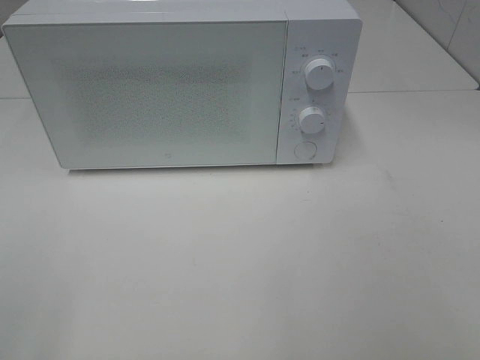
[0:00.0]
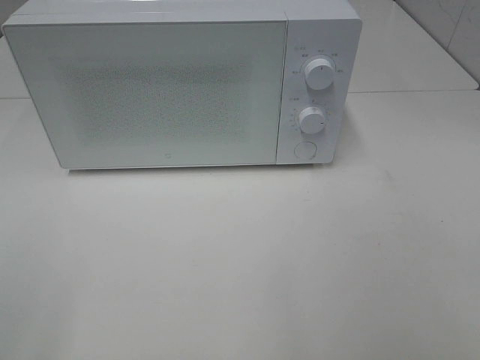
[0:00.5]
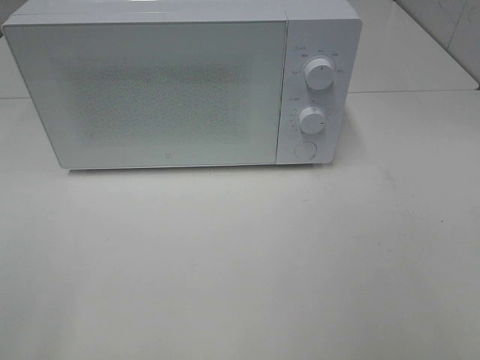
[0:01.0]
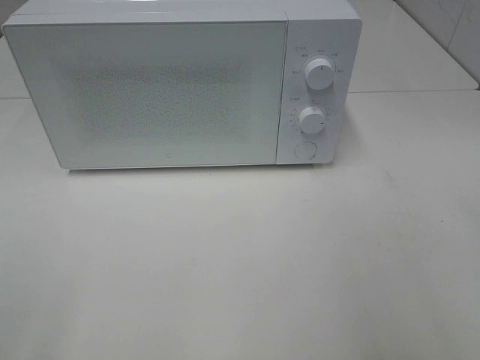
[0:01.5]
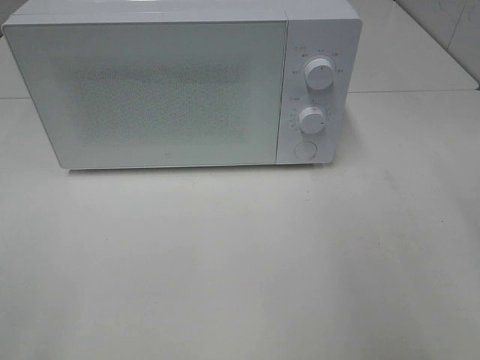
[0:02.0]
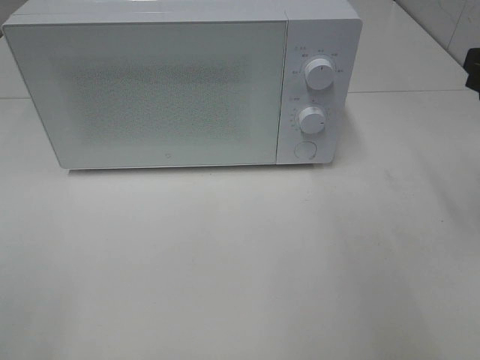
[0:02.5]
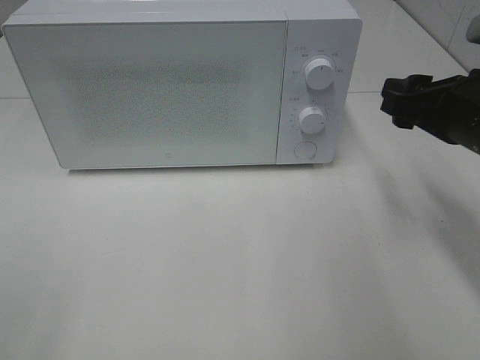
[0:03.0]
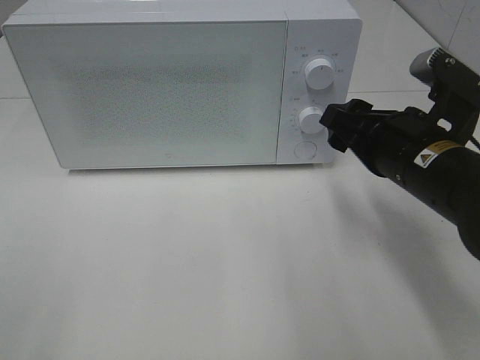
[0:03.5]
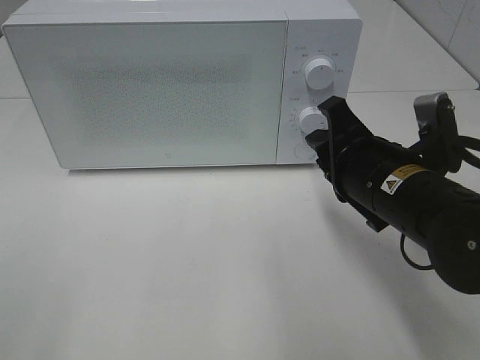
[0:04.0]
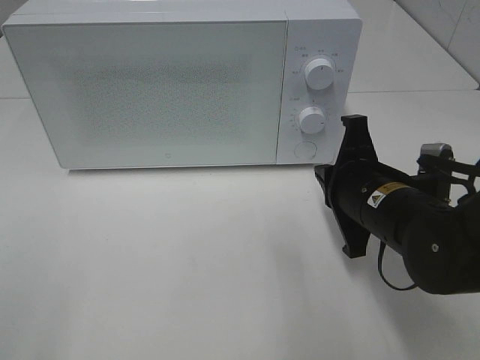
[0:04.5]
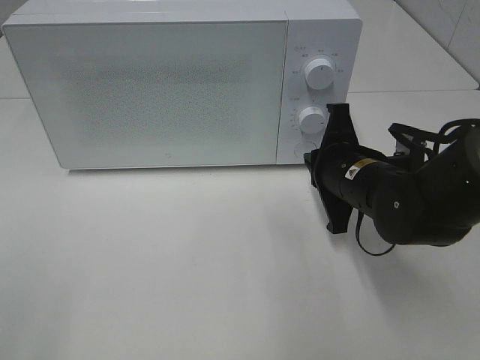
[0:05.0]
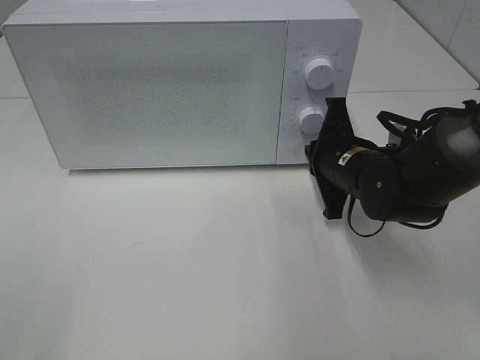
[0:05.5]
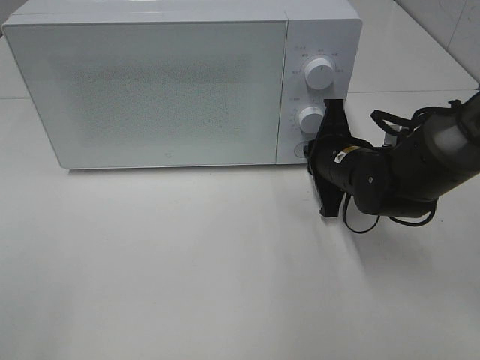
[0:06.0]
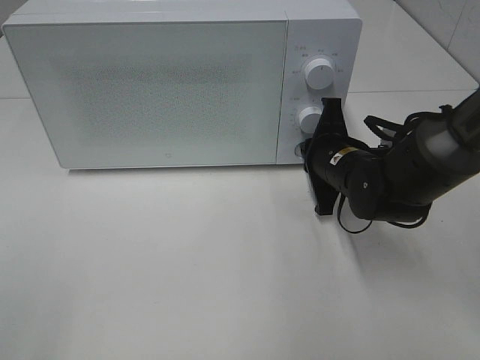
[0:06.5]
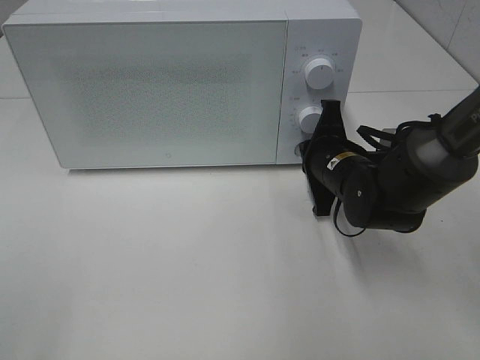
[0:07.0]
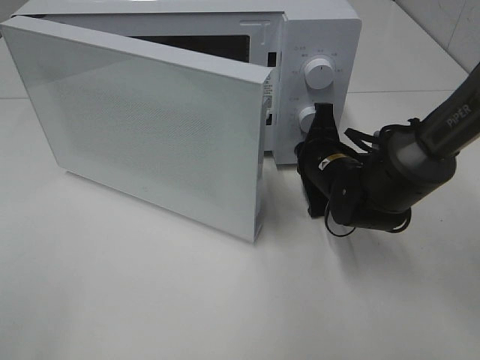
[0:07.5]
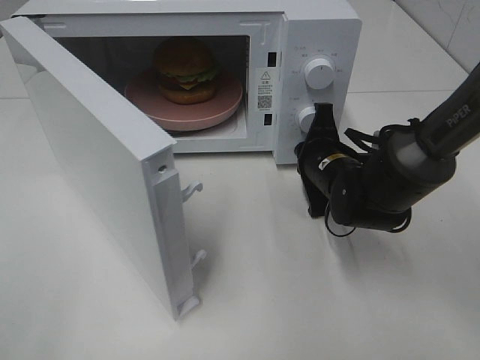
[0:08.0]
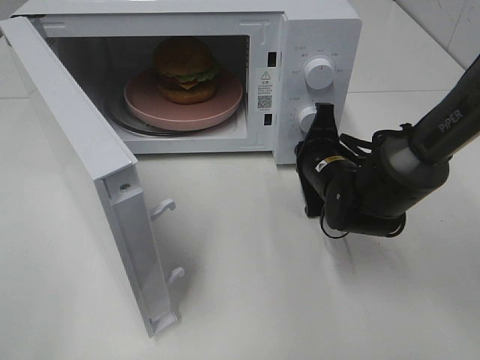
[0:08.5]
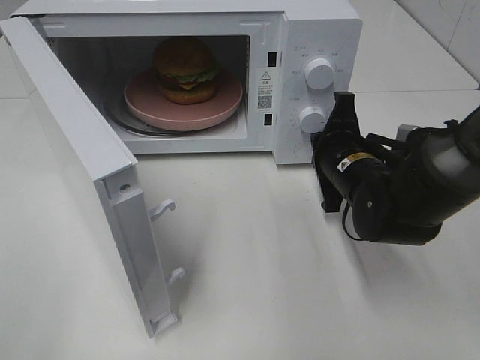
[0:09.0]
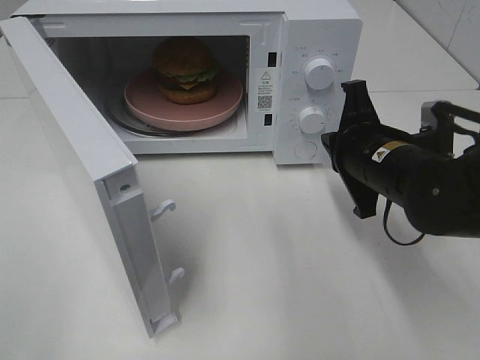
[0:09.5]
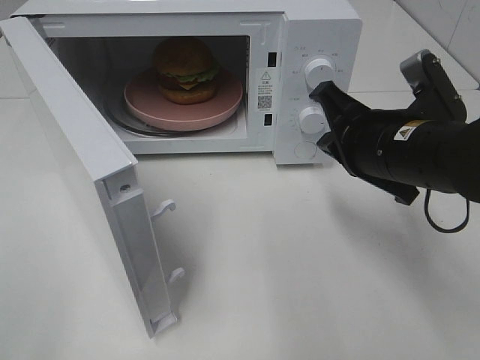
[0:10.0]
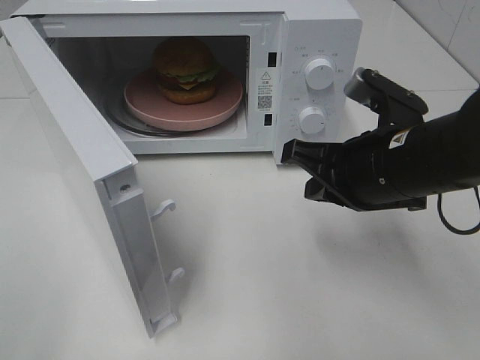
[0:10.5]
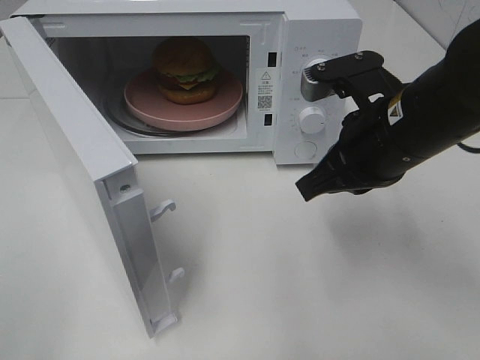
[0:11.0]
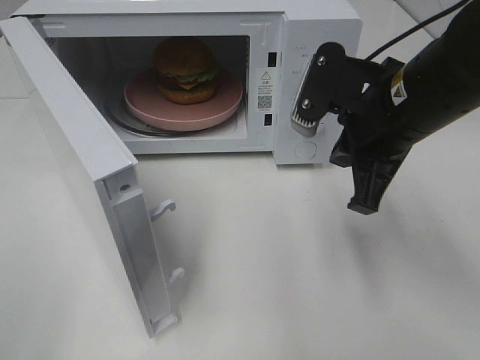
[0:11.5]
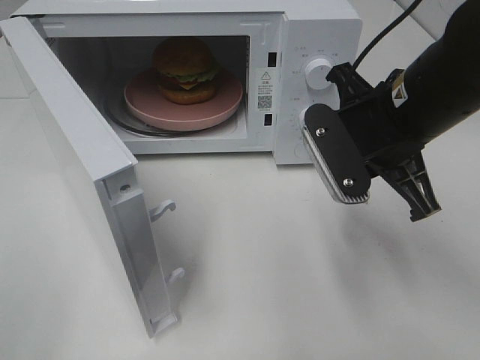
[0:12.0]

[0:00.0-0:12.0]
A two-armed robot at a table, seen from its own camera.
Task of the whole recording: Heat the burger.
Step, 0:00.0 to 0:08.5: Right hand: press the switch.
0:02.0 to 0:04.0: The right gripper goes roughly 20 cm to the left, downward and forward, and closes its fingers.
0:04.0 to 0:06.0: The right gripper goes some 15 cm forward and downward, and closes up.
0:08.0 to 0:10.0: The right gripper is displaced upward and backward by approximately 15 cm.

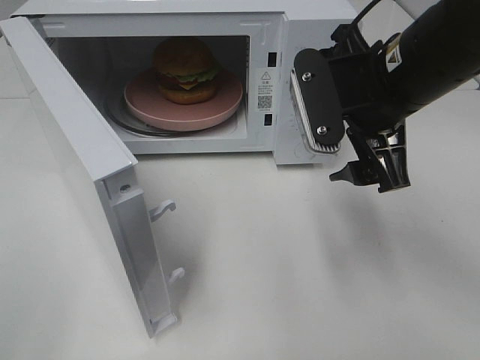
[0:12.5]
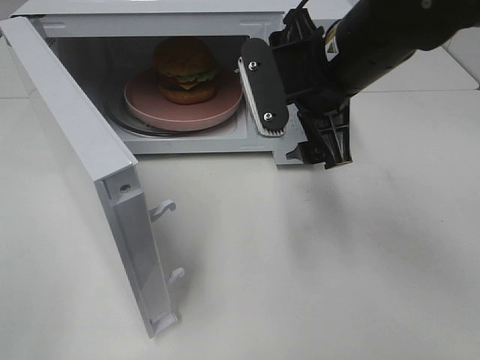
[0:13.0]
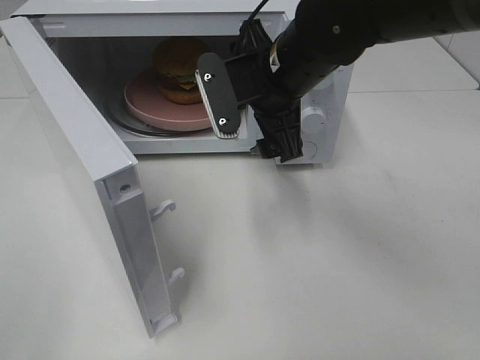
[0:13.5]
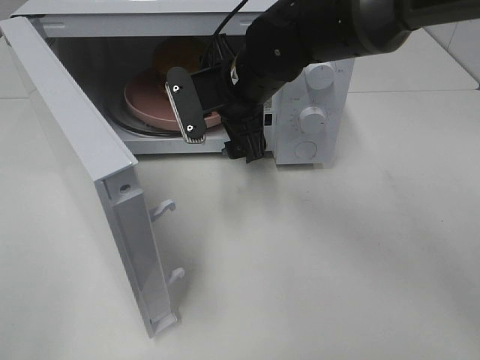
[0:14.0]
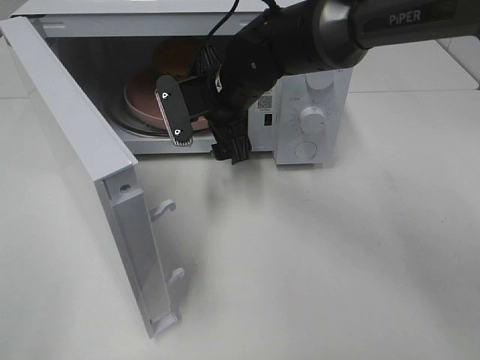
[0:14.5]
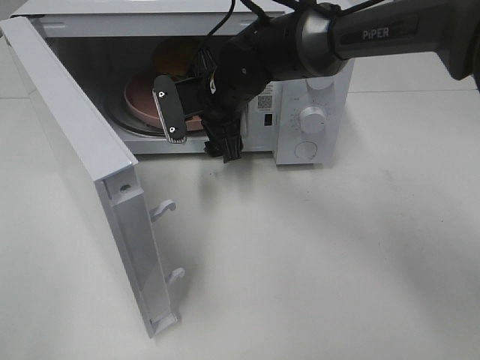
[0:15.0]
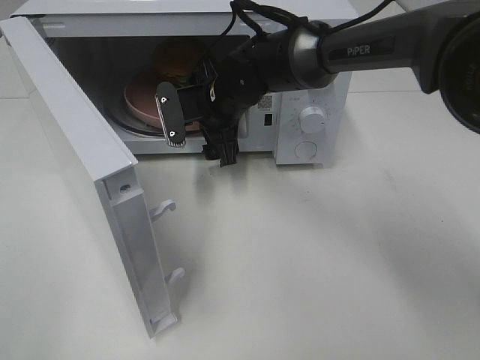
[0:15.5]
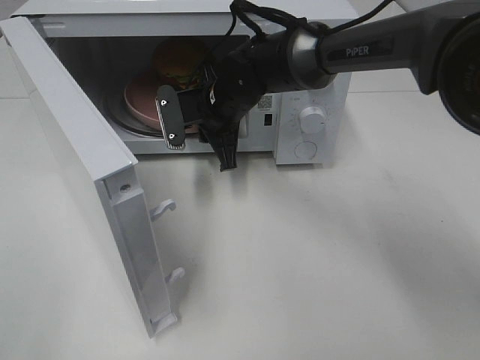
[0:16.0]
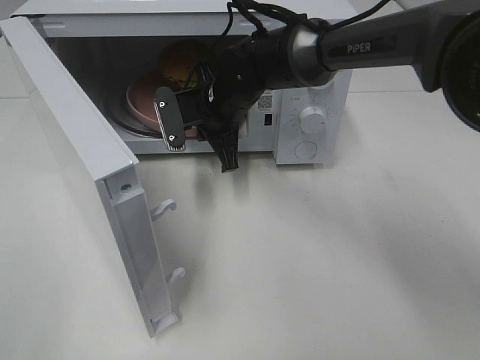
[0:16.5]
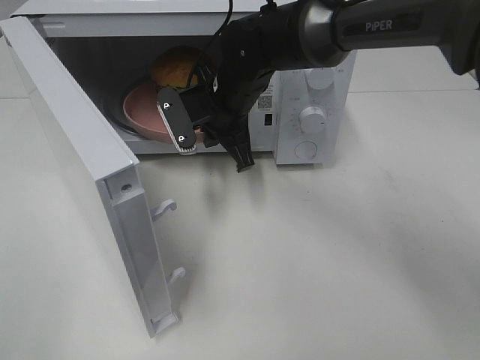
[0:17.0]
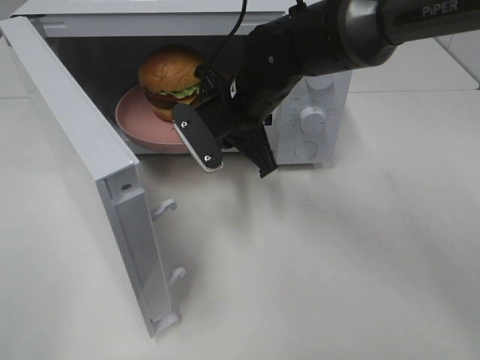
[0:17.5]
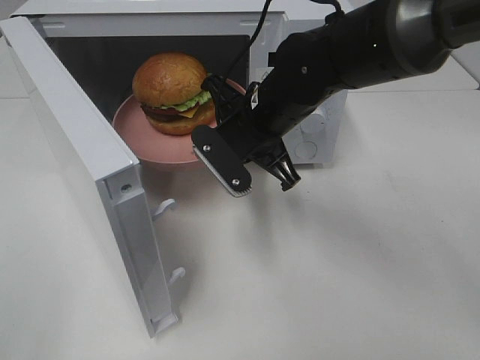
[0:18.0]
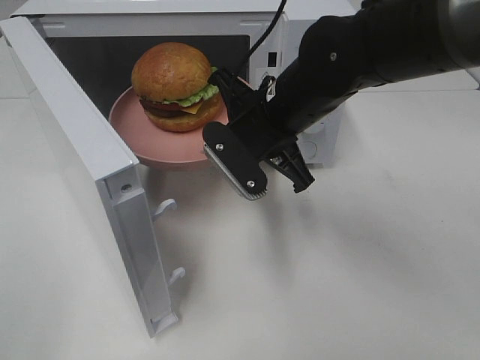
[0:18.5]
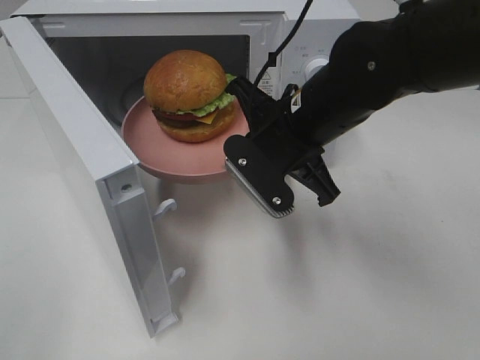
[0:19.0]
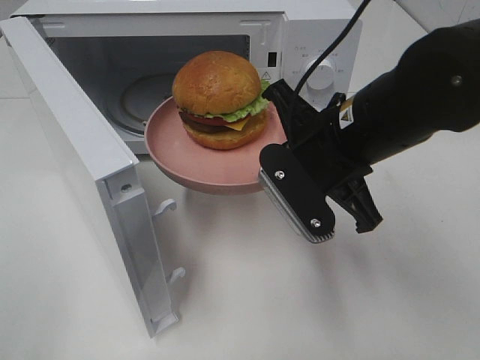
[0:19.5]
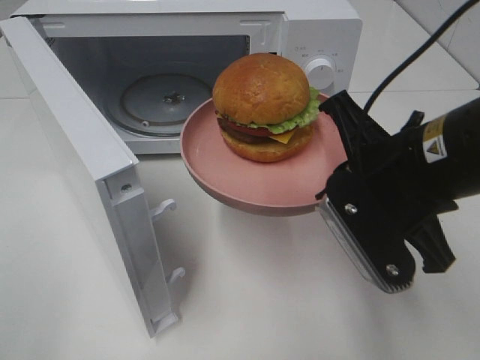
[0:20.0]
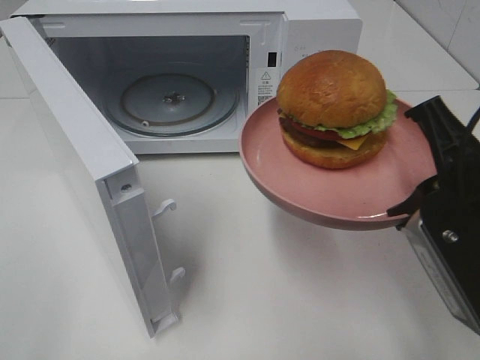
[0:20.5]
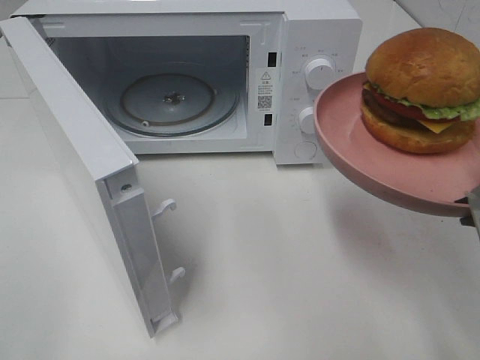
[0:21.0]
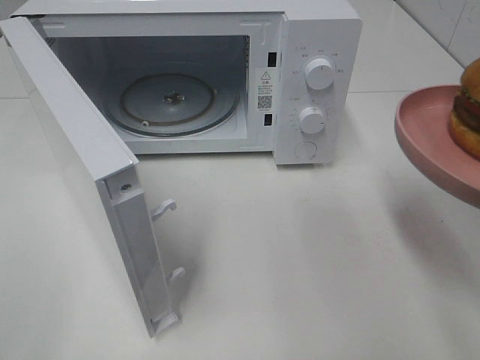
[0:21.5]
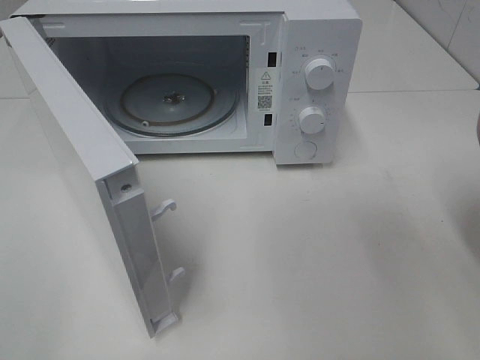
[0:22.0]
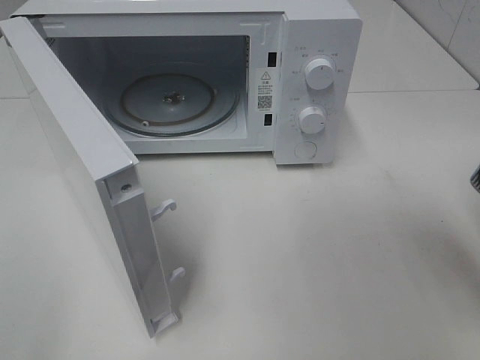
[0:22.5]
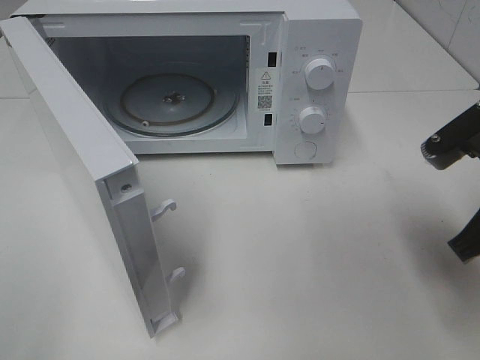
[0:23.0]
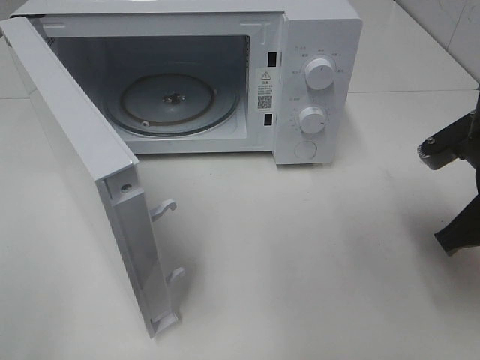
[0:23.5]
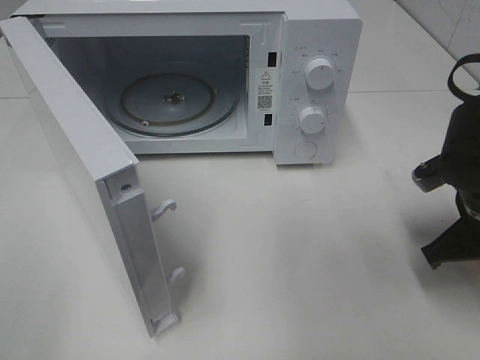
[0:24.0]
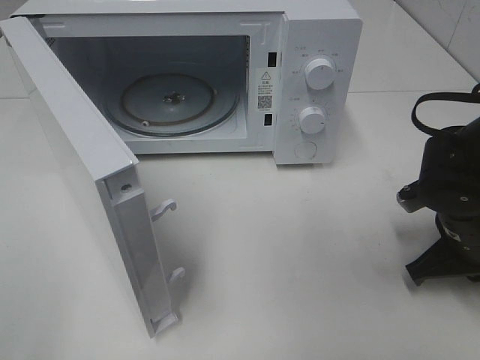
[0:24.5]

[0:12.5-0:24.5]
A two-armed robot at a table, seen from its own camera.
Task of the whole recording: Heat the burger.
Step, 0:12.5 to 0:16.0: Right hand: grab the plate with the hamburger.
0:12.5 to 0:14.5: The right gripper goes roughly 20 cm to the left, forward and downward.
0:14.5 to 0:16.5: The right gripper closes.
0:16.5 to 0:18.5: The right gripper travels backward, to the right and upward by approximately 15 cm.
0:18.5 to 0:20.5: The right gripper moves backward and to the right, about 20 cm.
0:20.5 to 0:22.5: The right gripper moves to the right, approximately 5 cm.
0:22.5 to 0:24.5: The right gripper travels downward and forward by approximately 15 cm.

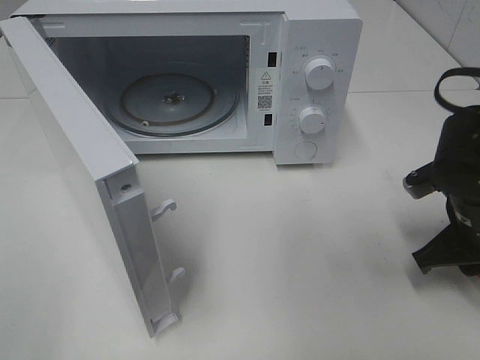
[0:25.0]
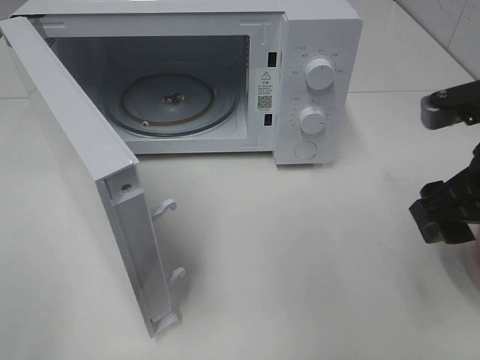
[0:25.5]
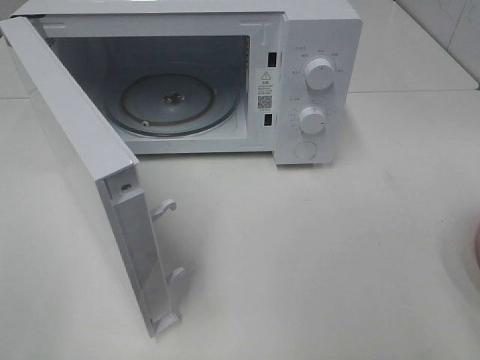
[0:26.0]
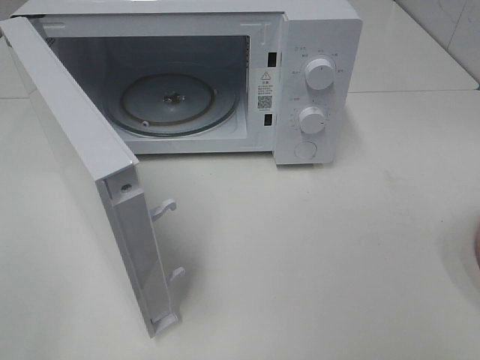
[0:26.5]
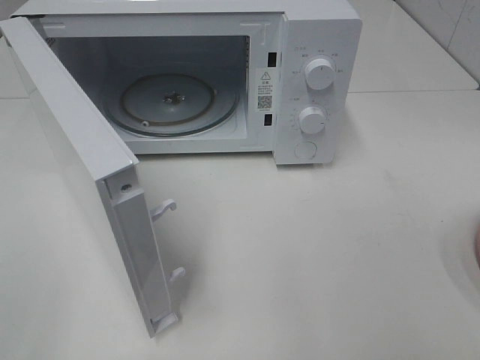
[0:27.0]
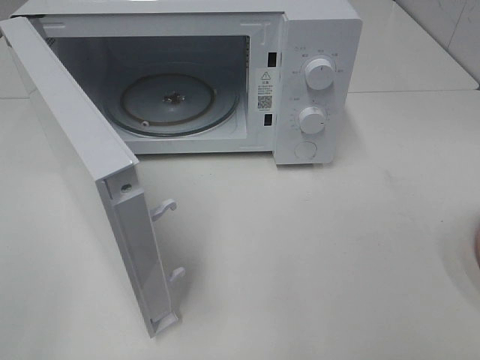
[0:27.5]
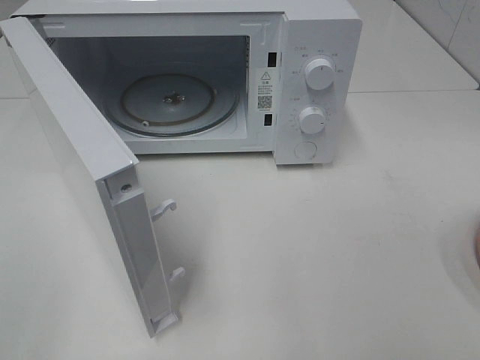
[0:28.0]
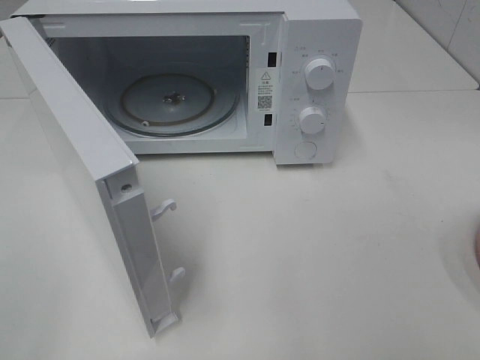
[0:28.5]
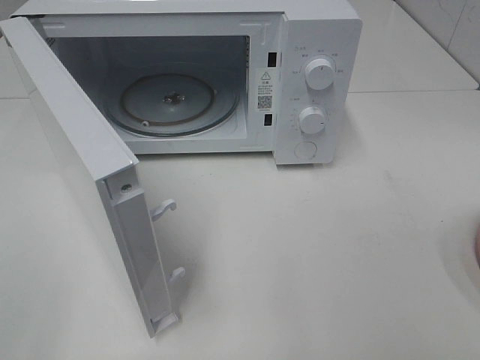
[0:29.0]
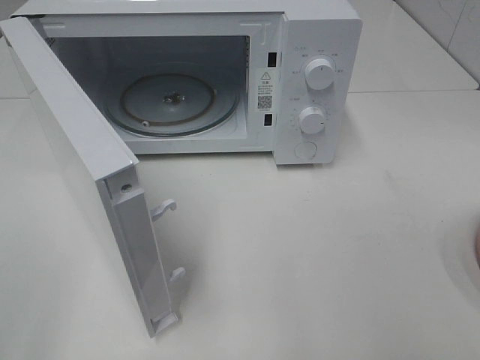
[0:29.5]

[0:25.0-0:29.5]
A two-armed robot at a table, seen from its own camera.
Task of the whole recording: Heat the burger.
0:25.0 to 0:27.0: The right gripper is displaced backward and upward by about 30 cm.
